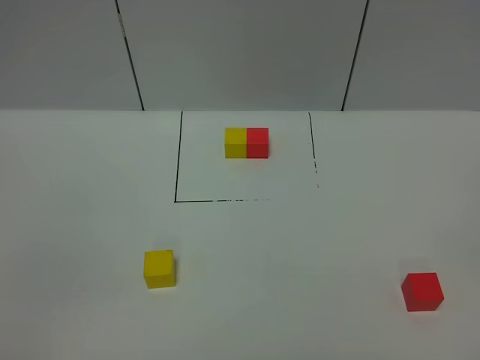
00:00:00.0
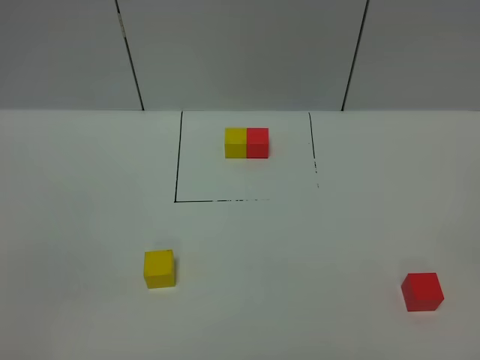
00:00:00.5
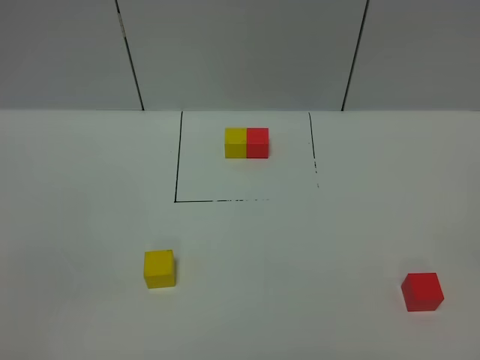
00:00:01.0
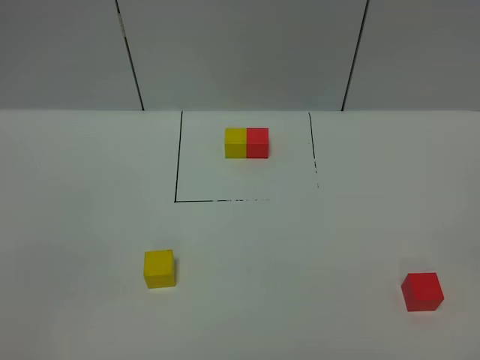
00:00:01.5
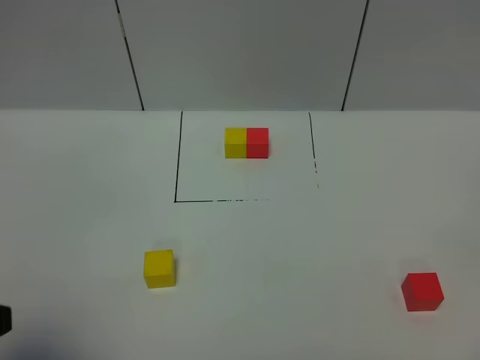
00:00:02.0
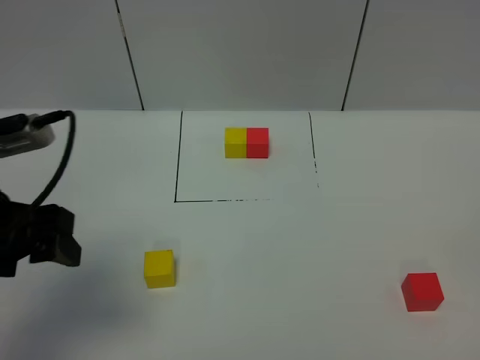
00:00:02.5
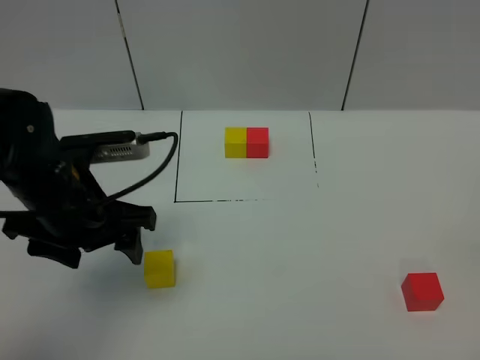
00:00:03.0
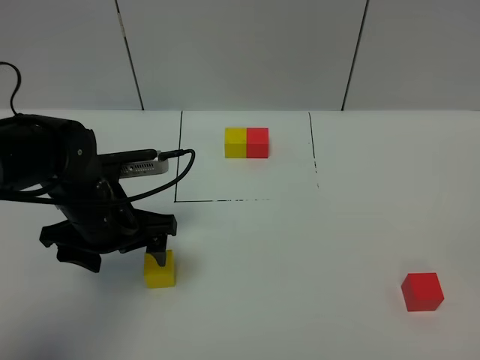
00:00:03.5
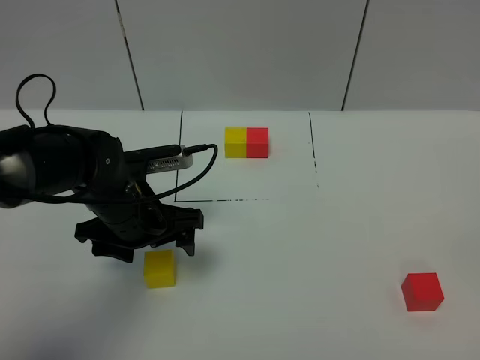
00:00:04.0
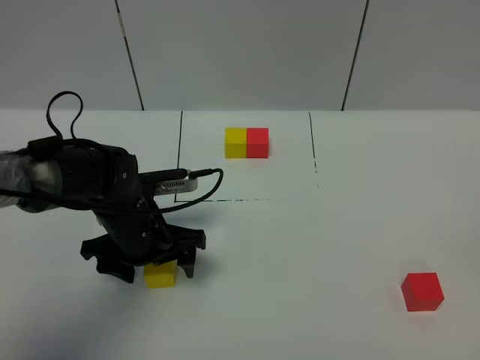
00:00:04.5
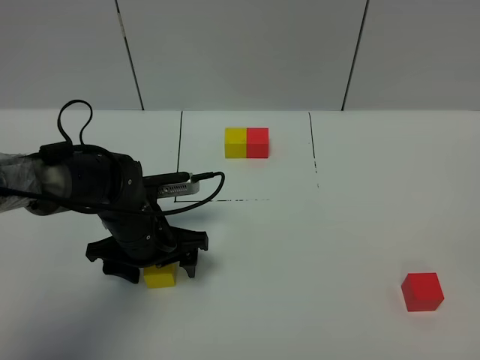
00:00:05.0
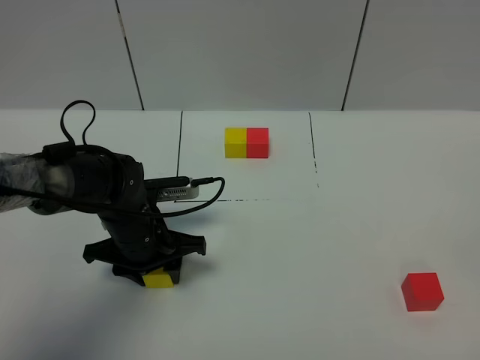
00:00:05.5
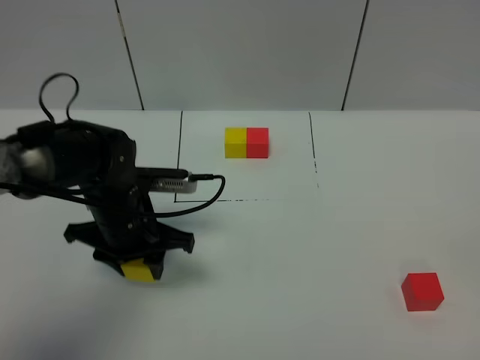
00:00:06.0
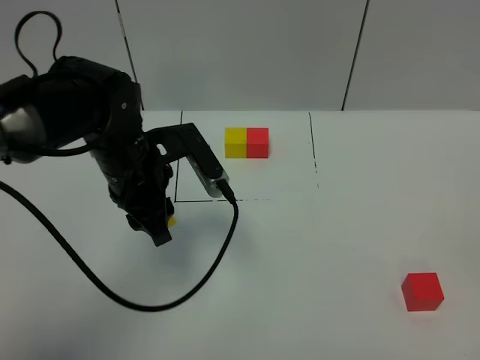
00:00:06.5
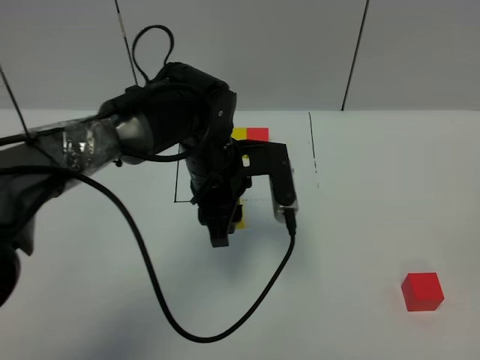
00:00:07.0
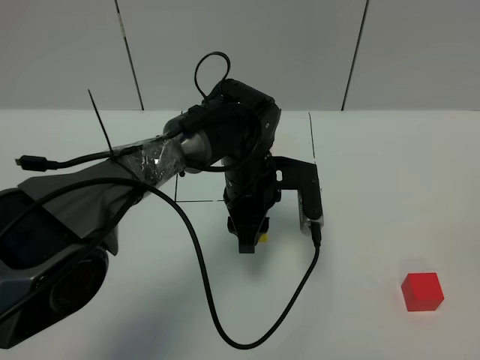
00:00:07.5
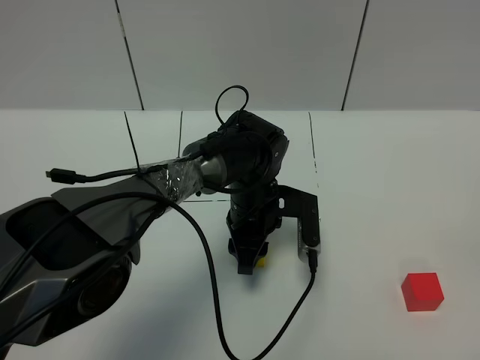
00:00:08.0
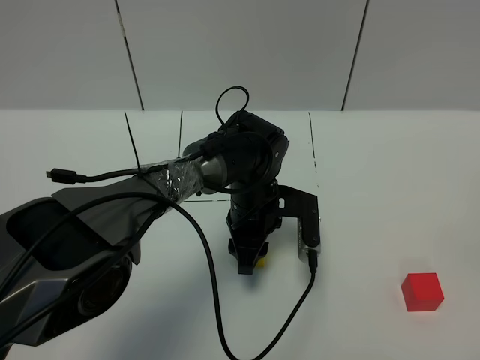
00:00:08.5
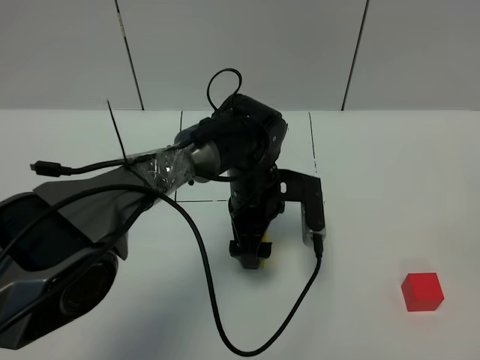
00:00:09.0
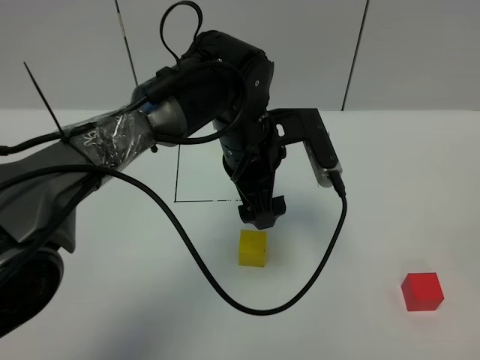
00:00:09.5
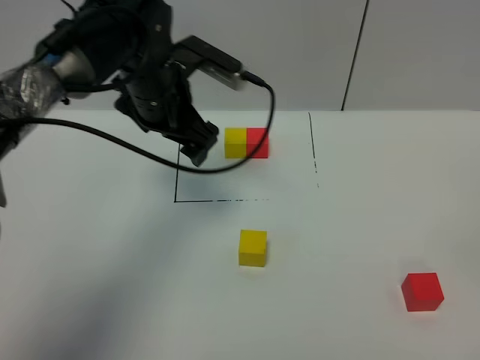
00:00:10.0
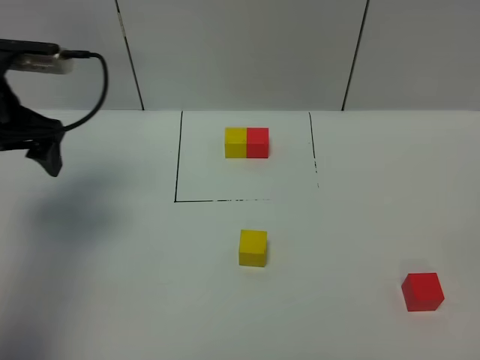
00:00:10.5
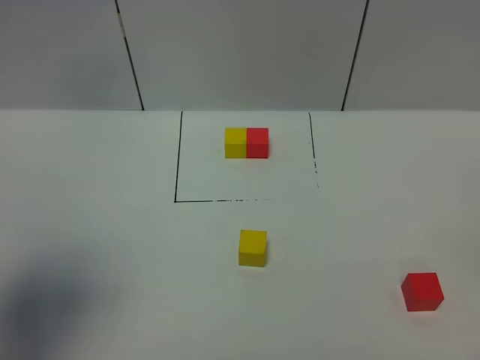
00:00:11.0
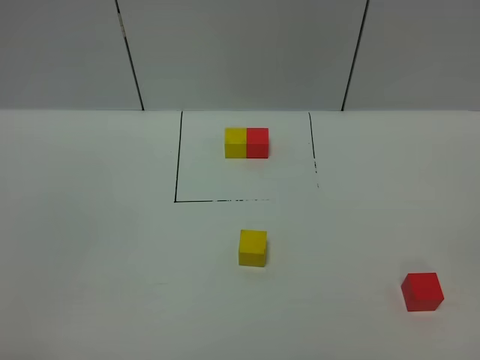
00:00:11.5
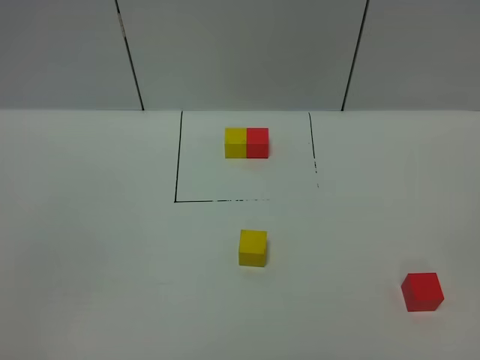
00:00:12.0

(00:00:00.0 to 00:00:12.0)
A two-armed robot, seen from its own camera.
Task of the whole recording: According to the building block template in front, assemble the scattered blocks together.
Step, 00:00:02.0 - 00:00:08.5: Put the yellow cube in the center of the table.
00:00:00.0 - 00:00:02.0: The left gripper is displaced forward by roughly 10 cm.
00:00:02.0 - 00:00:04.0: The left gripper is displaced forward, downward and to the right by roughly 30 cm.
00:00:04.0 - 00:00:06.0: The left gripper closes up.
00:00:06.0 - 00:00:08.0: The left gripper is displaced to the right by about 15 cm.
00:00:08.0 - 00:00:10.0: The left gripper travels upward and to the left by approximately 20 cm, and opens its fingers.
00:00:10.0 - 00:00:12.0: The left gripper heads backward, covering approximately 40 cm.

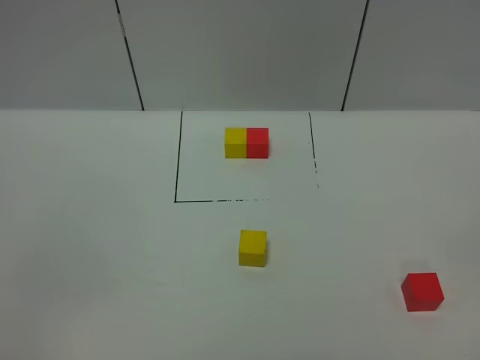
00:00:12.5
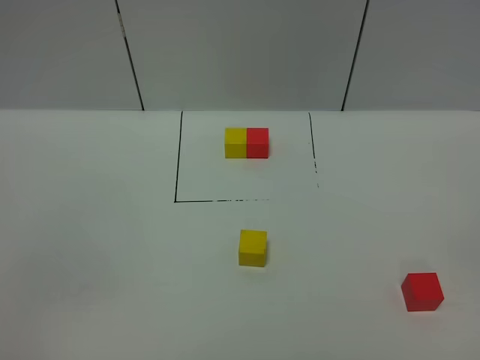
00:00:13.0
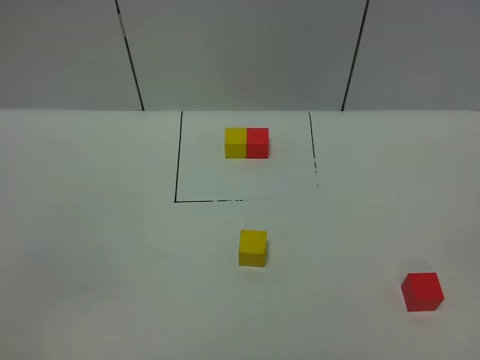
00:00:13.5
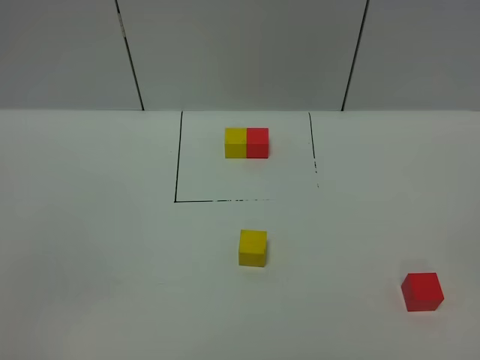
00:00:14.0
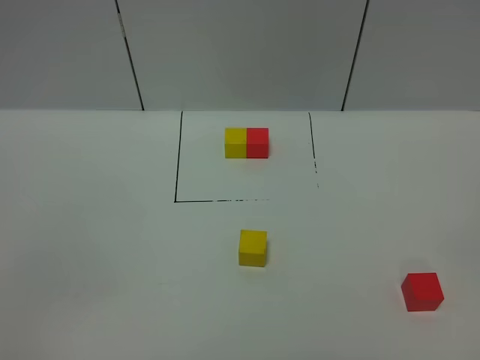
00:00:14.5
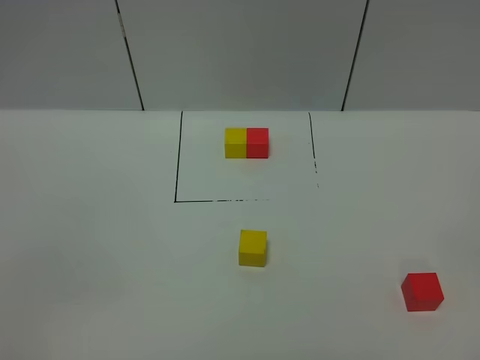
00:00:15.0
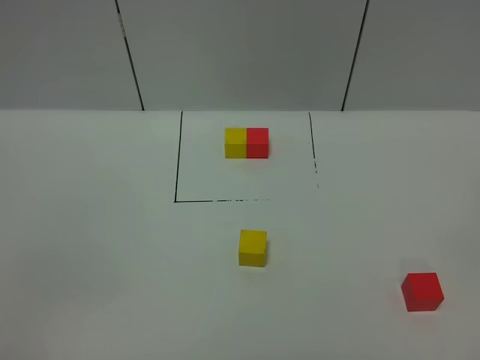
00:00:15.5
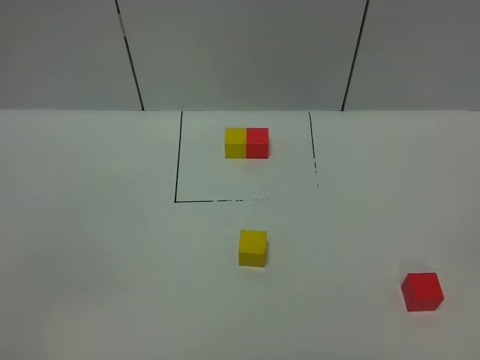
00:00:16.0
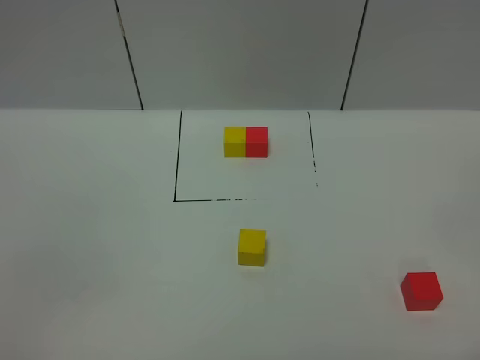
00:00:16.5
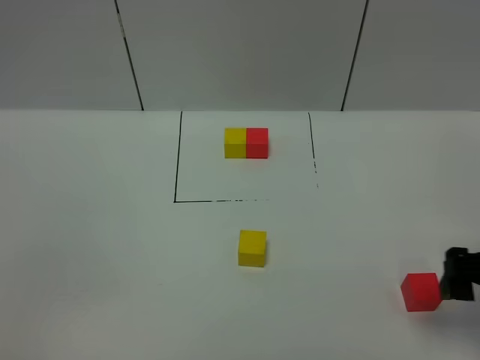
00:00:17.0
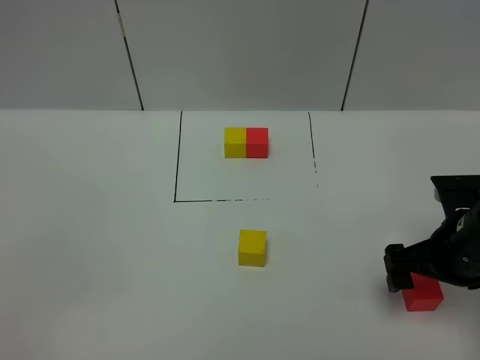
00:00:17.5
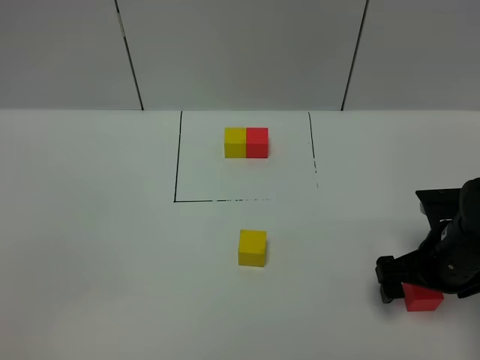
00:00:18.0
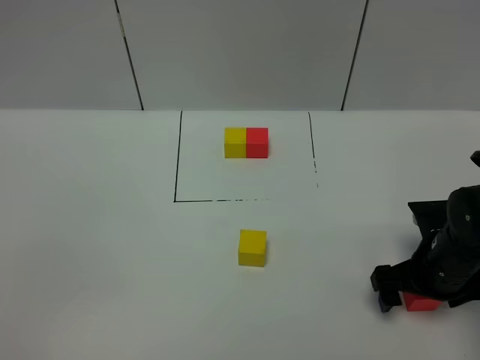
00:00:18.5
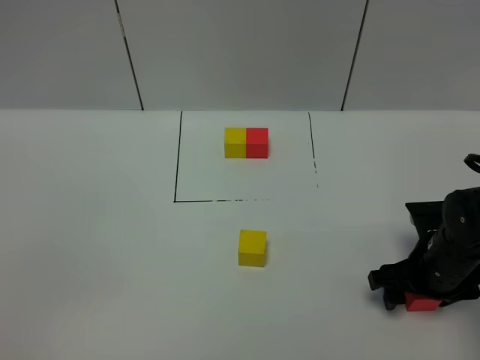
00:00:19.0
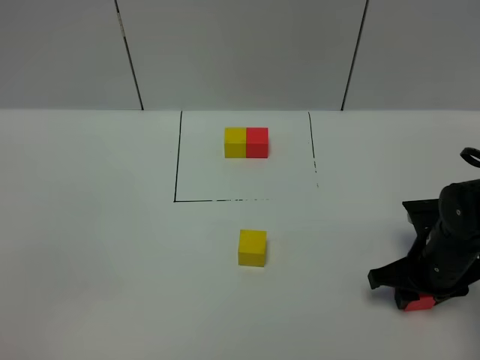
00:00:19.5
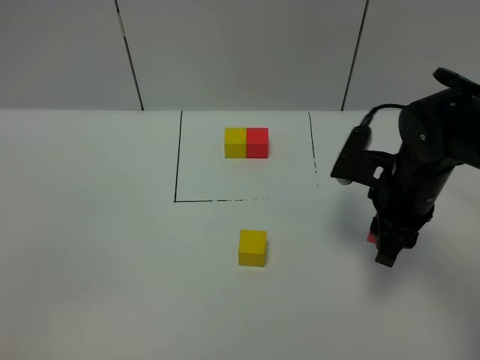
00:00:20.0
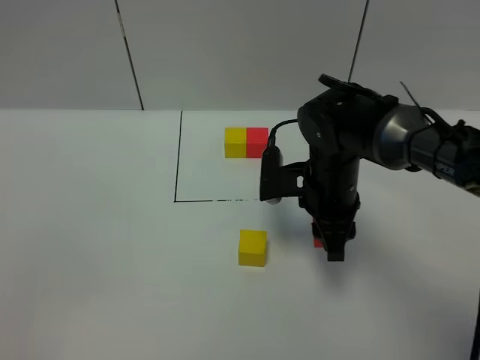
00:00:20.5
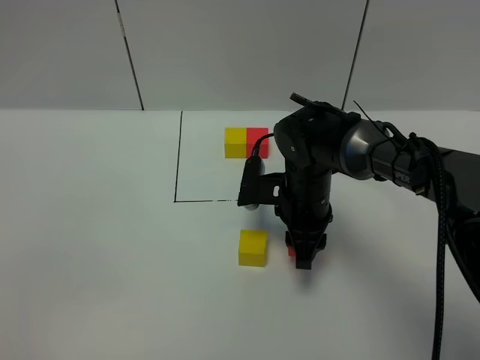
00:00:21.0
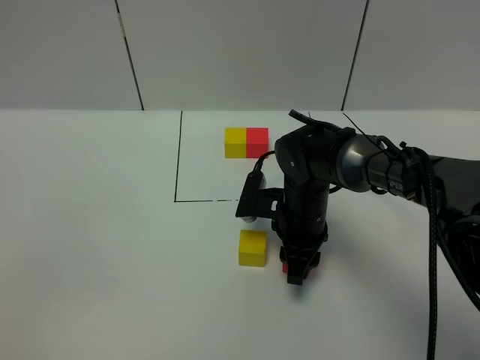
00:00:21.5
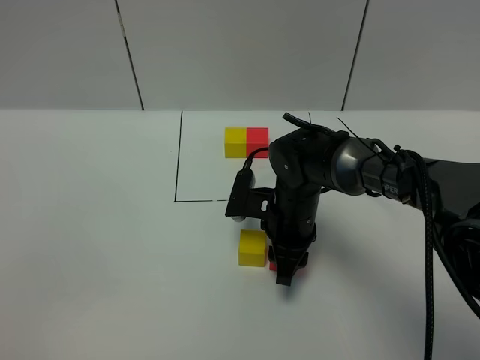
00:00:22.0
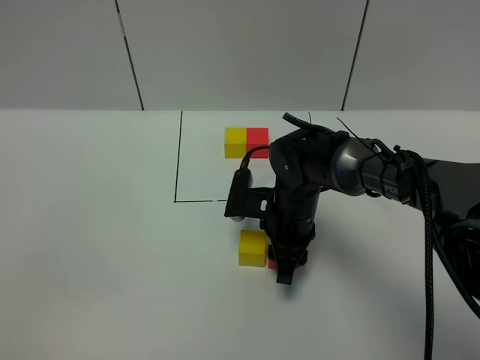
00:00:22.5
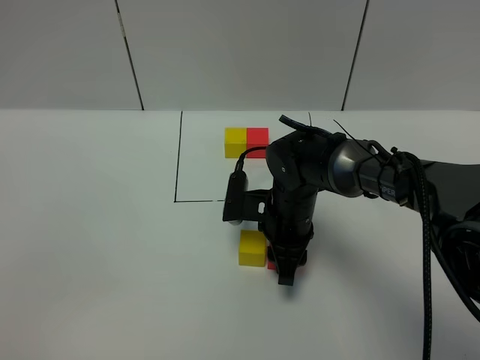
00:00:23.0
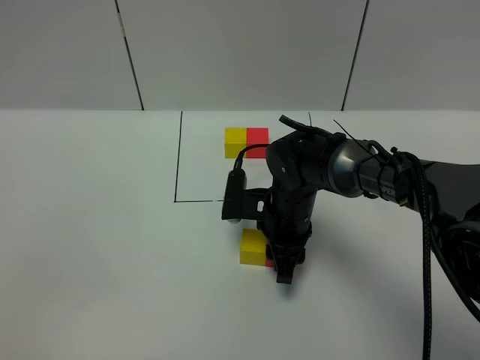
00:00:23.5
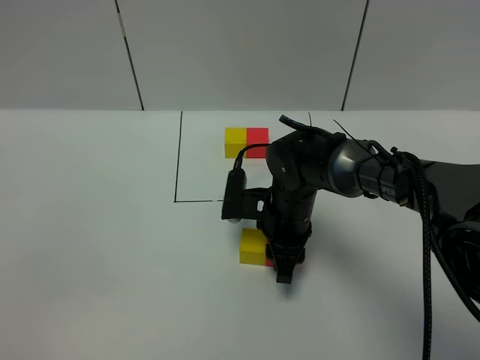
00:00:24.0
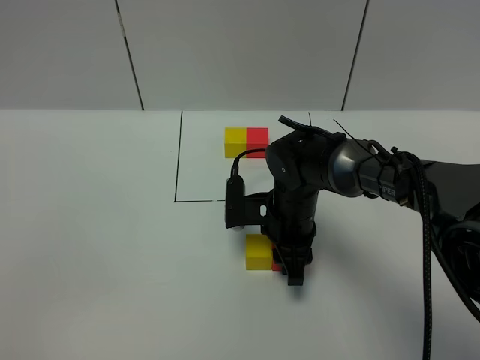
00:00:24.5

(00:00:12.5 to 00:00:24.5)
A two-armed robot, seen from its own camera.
Task of the whole recording: According to the building block template in front, assemble the scattered blocks together.
00:00:12.5 - 00:00:14.5: Neither gripper changes place.
00:00:16.5 - 00:00:18.5: The right gripper heads forward and downward, covering approximately 25 cm.
00:00:18.5 - 00:00:20.5: The right gripper travels to the left and forward by some 15 cm, and closes.
00:00:20.5 - 00:00:22.5: The right gripper goes about 5 cm downward.
00:00:22.5 - 00:00:24.5: There are only small adjustments of the grippers.

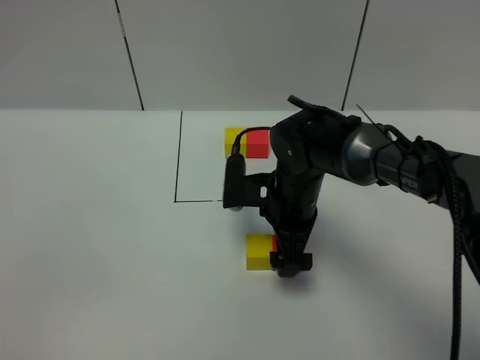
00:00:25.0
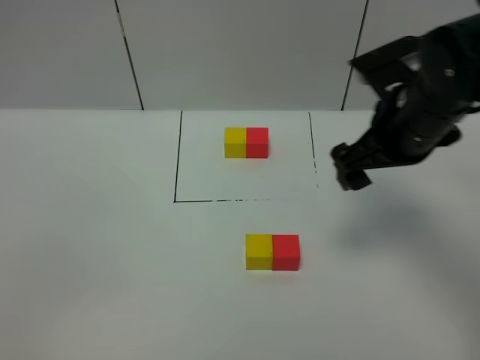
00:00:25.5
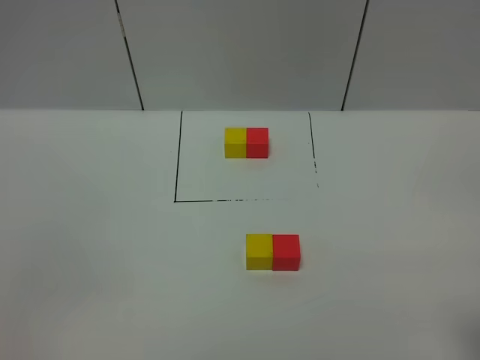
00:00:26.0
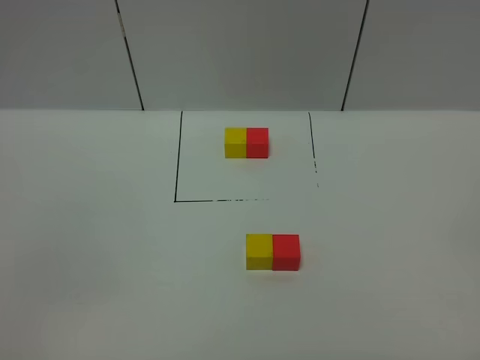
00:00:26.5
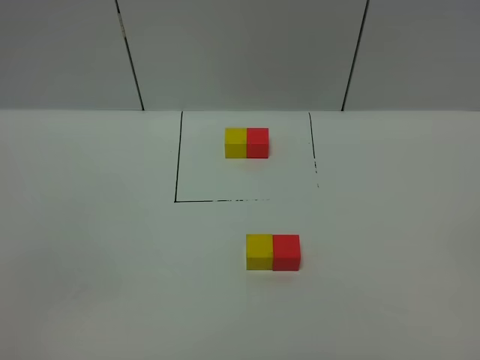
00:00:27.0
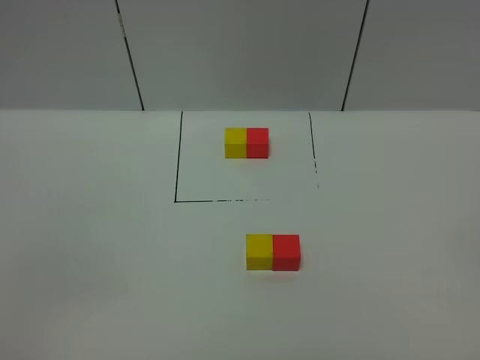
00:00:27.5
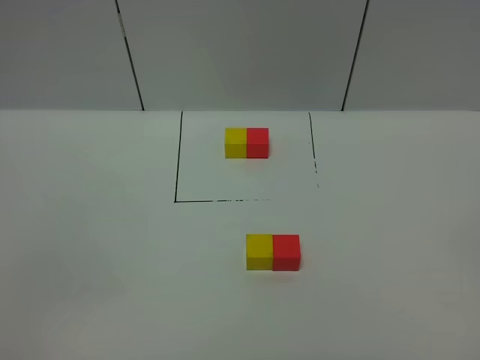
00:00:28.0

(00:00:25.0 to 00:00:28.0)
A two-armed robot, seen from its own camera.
Task of the whole recording: According to the building block template in front, assemble the scattered blocks together.
00:00:25.0 - 00:00:26.5: The right gripper shifts about 40 cm backward and to the right.
